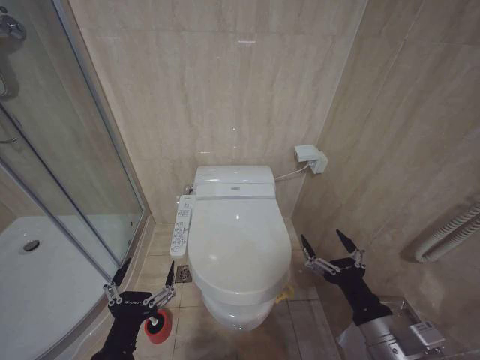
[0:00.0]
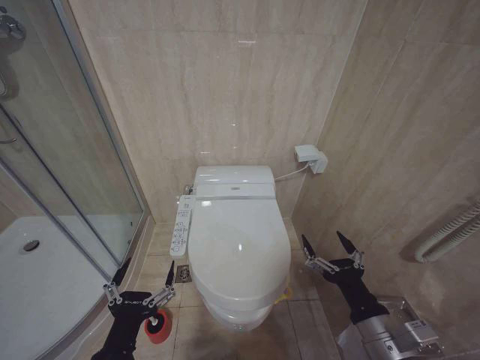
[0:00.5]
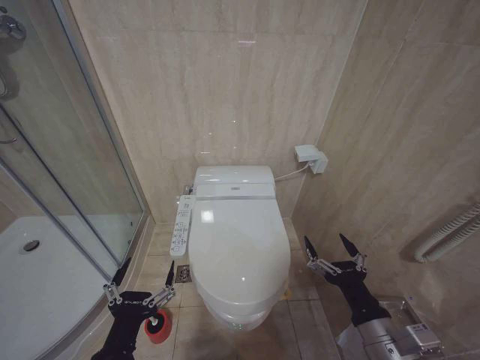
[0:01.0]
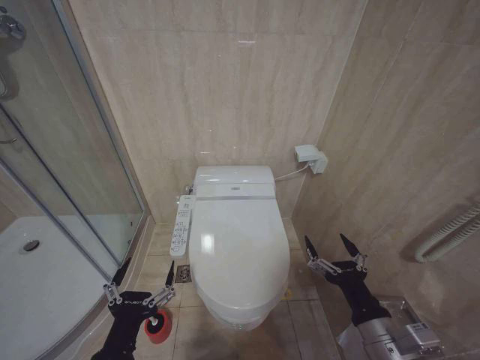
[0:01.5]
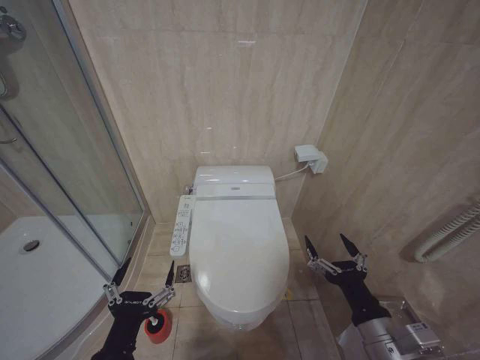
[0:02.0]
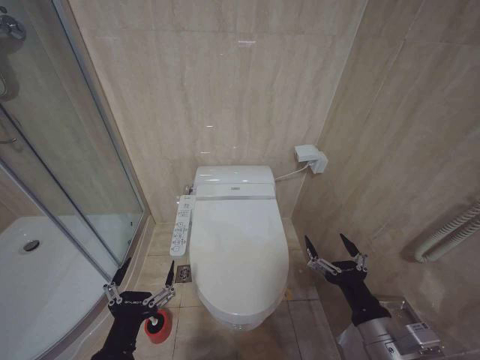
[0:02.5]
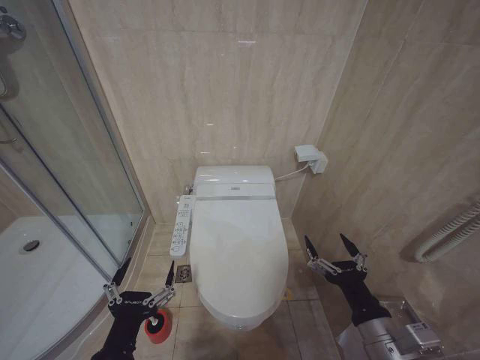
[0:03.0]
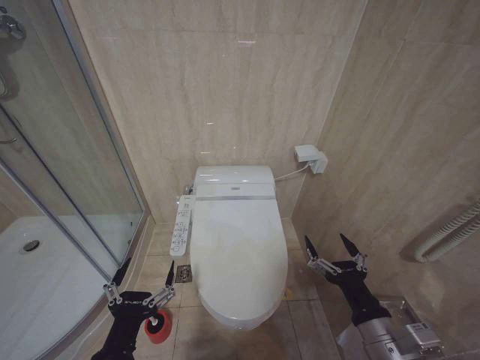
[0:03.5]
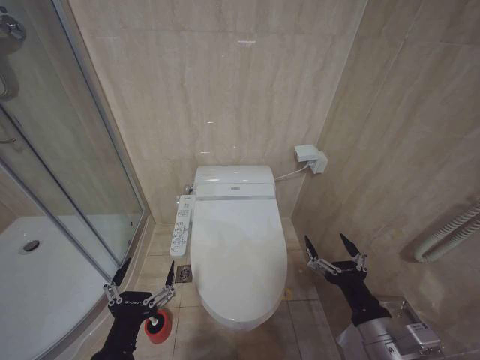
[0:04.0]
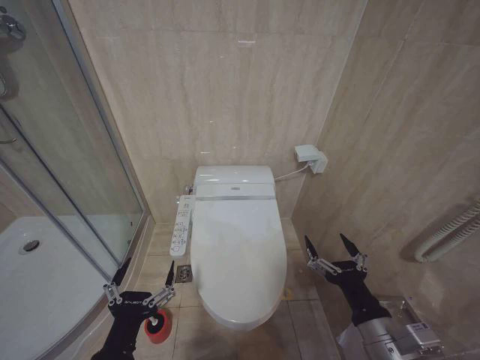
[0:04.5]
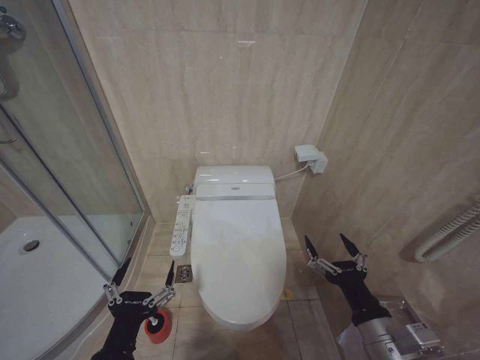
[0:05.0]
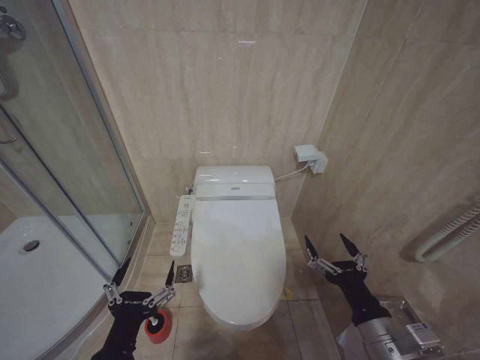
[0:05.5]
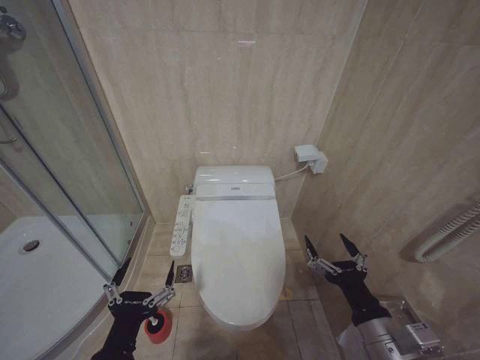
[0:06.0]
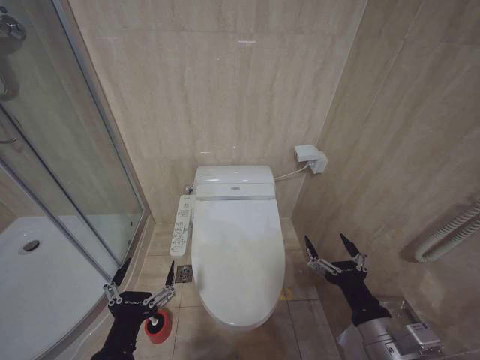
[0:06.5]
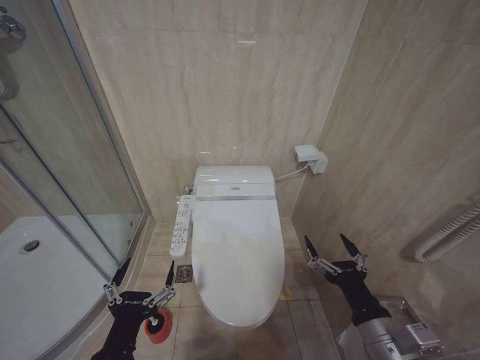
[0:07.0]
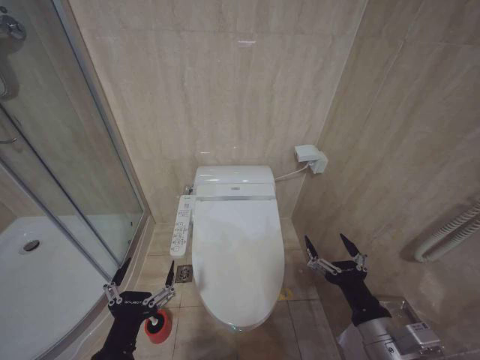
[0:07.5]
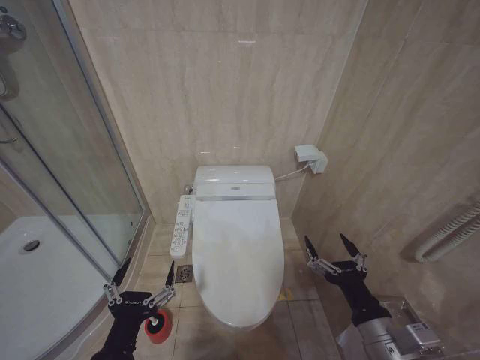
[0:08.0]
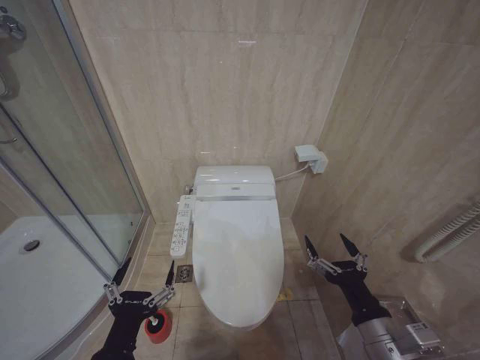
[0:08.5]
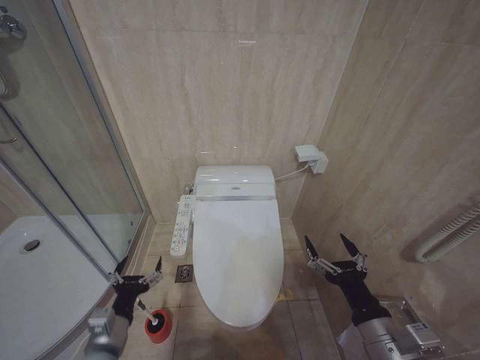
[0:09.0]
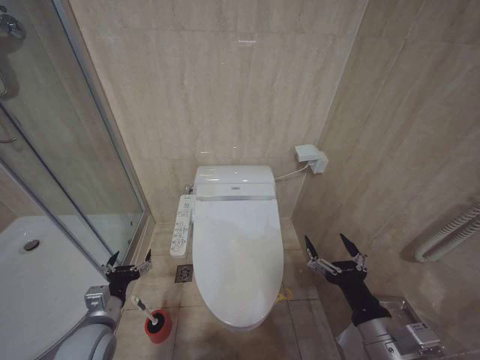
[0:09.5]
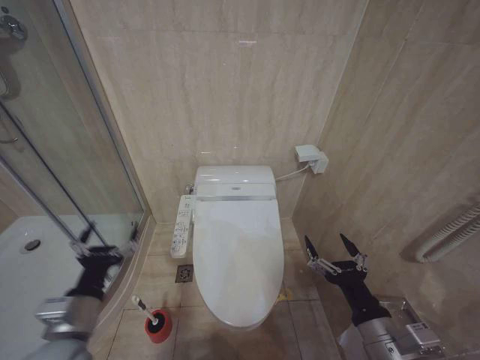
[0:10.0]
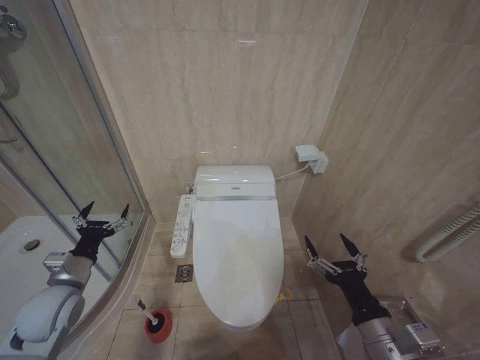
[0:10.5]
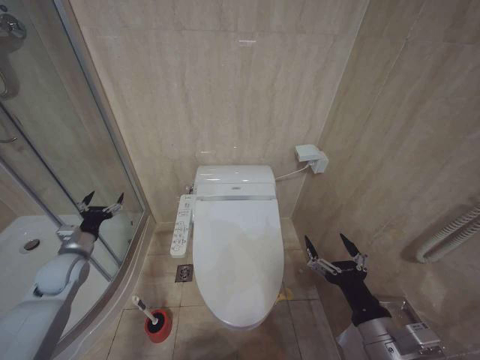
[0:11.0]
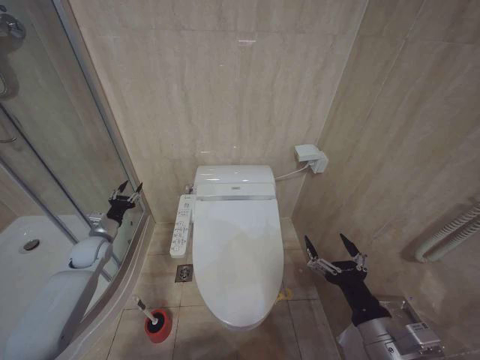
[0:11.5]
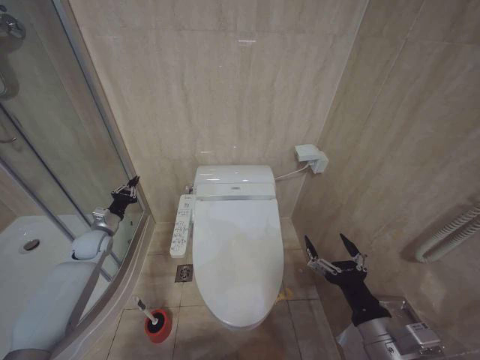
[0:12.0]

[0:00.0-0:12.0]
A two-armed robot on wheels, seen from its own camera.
Task of the whole recording: Open the toilet lid, clean the toilet bowl with a toilet brush, close the toilet lid, and flush.
0:02.0 to 0:08.0: Neither gripper changes place.
0:08.0 to 0:10.0: The left gripper heads forward and to the left, covering roughly 10 cm.
0:10.0 to 0:12.0: The left gripper travels forward and to the left by roughly 30 cm, and closes up.

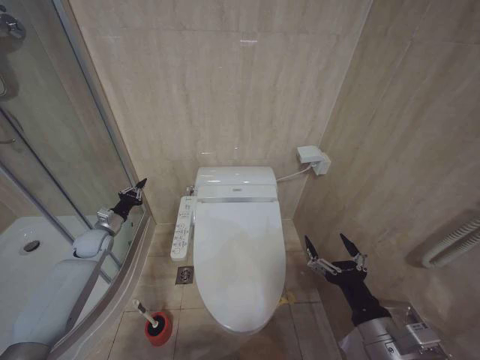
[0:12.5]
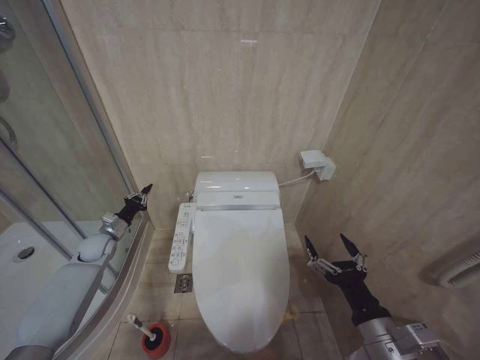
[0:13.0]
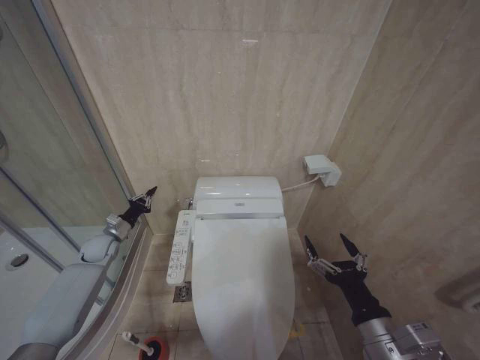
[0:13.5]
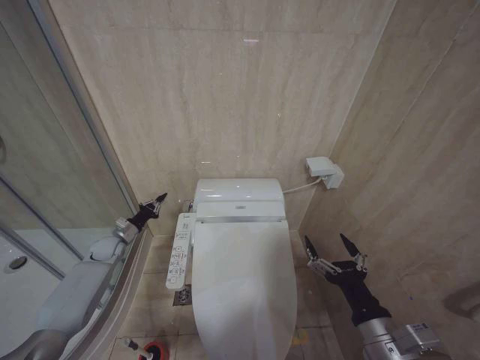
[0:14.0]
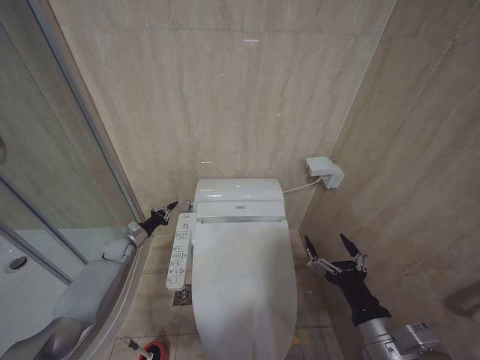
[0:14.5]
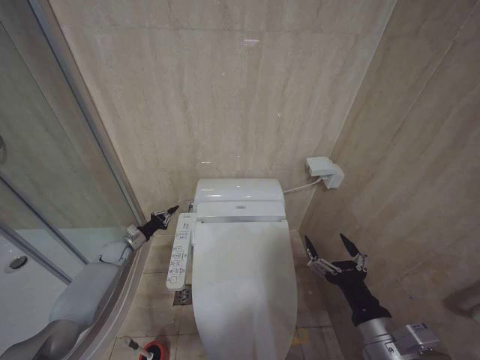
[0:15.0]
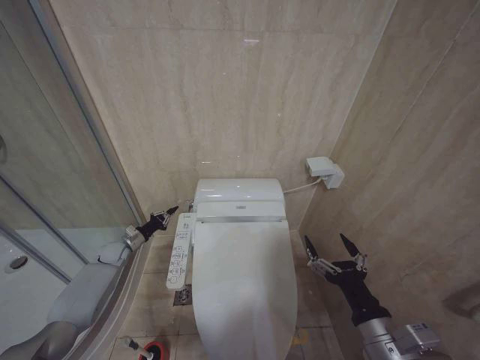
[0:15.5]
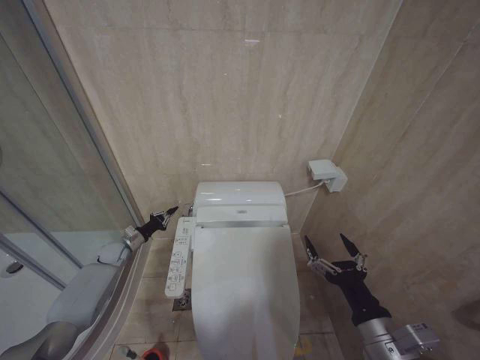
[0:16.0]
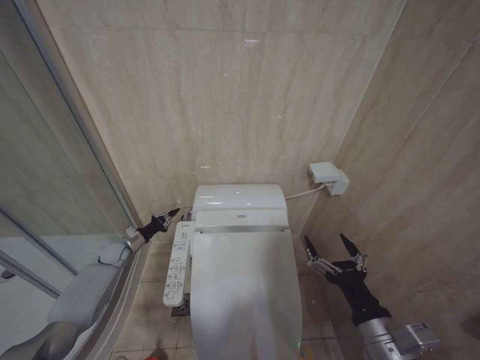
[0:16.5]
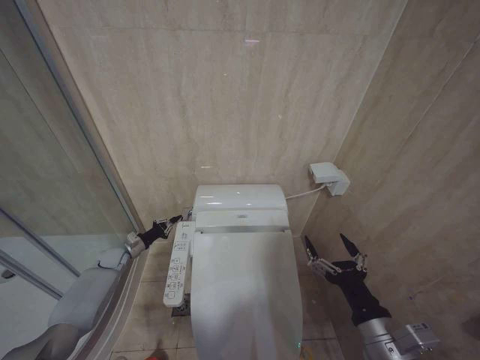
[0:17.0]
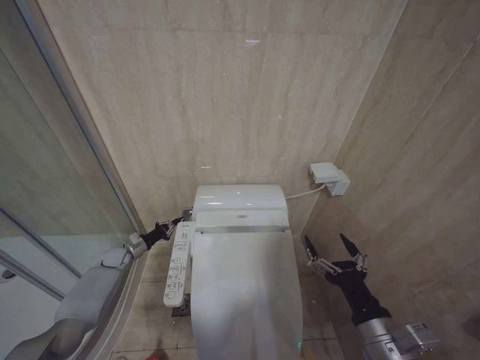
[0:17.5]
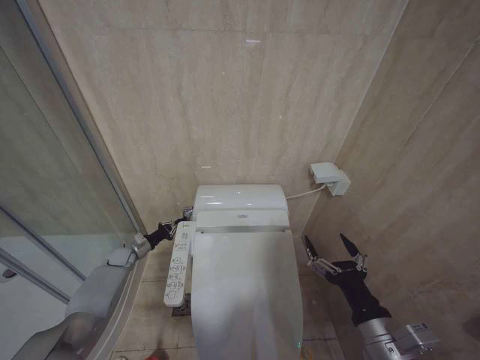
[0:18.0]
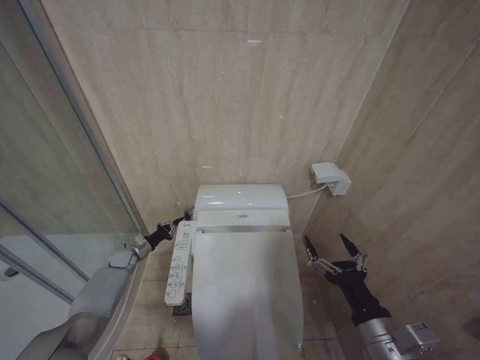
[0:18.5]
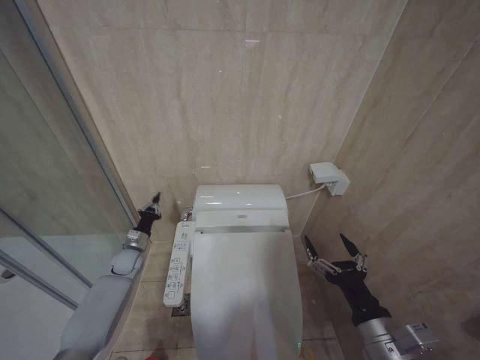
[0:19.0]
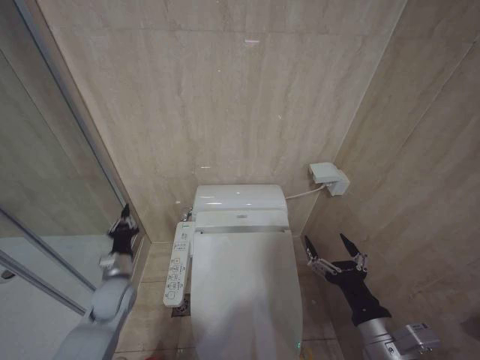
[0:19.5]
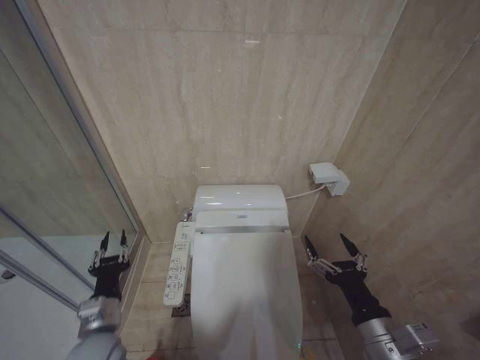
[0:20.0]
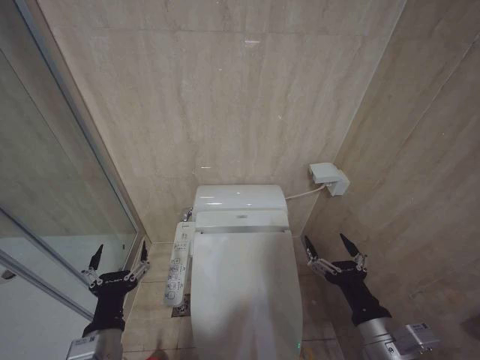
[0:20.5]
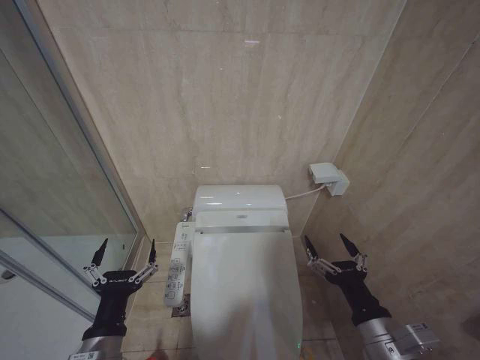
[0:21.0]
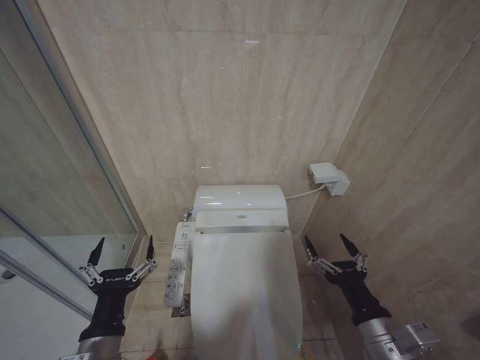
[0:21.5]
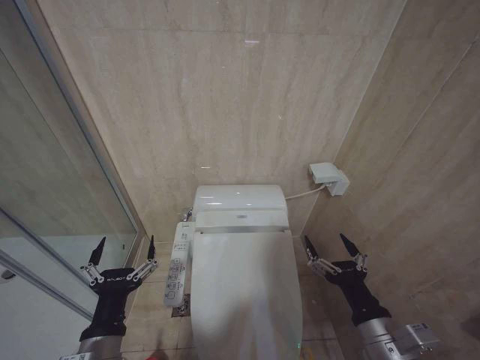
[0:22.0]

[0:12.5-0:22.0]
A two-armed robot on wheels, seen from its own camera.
Task of the whole recording: Open the toilet lid, clean the toilet bowl with a toilet brush, close the toilet lid, and flush.
0:12.5 to 0:14.5: The left gripper heads downward, covering some 10 cm.
0:14.5 to 0:18.0: The grippers move only a little.
0:18.0 to 0:20.0: The left gripper goes approximately 35 cm backward, upward and to the right.
0:20.0 to 0:22.0: The left gripper moves backward, upward and to the right, approximately 15 cm, and opens.

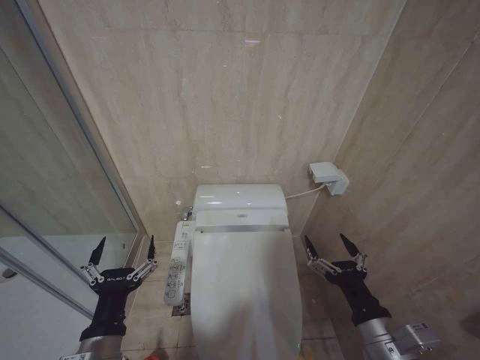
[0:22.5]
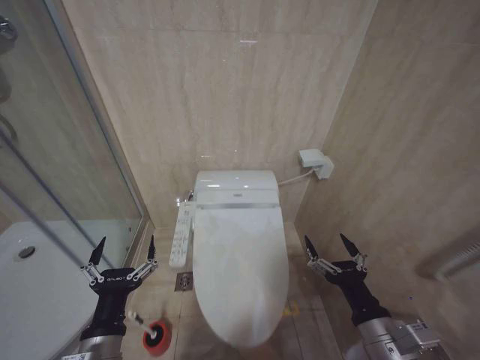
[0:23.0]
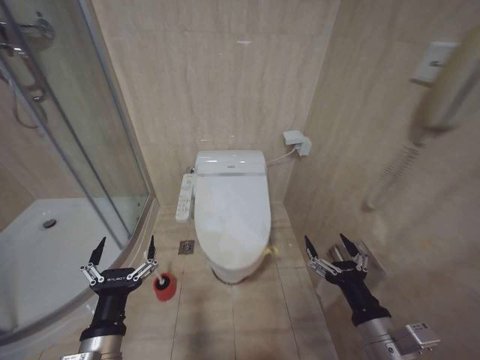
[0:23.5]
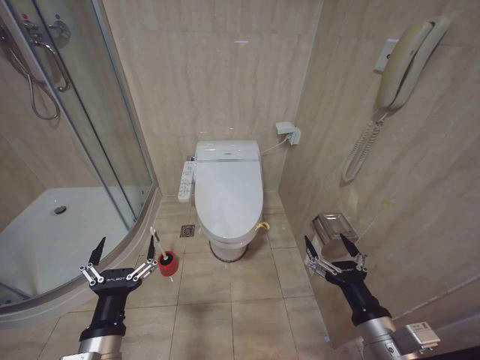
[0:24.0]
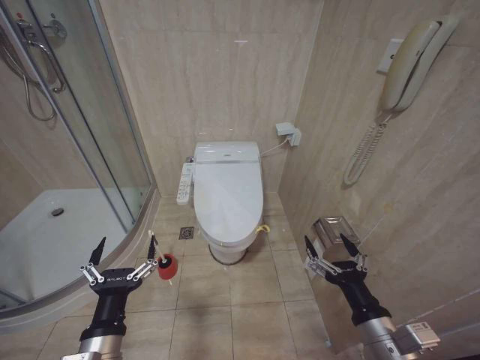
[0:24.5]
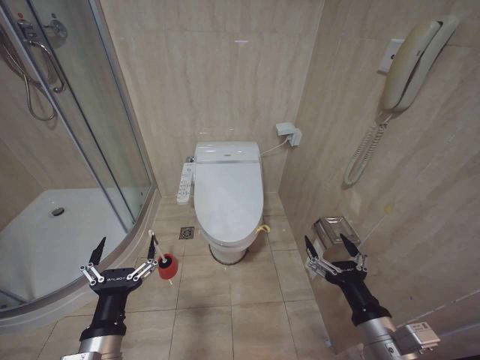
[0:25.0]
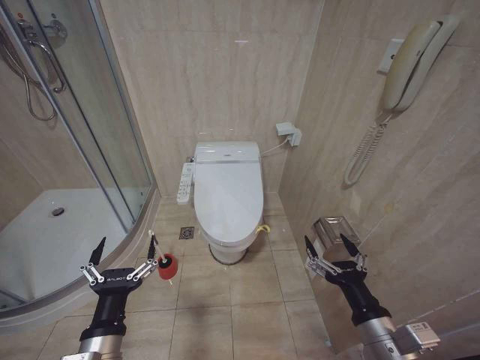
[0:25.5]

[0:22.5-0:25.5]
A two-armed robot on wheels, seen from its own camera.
Task of the whole recording: Open the toilet lid, clean the toilet bowl with a toilet brush, close the toilet lid, and flush.
0:24.0 to 0:25.5: The two grippers keep their place.
